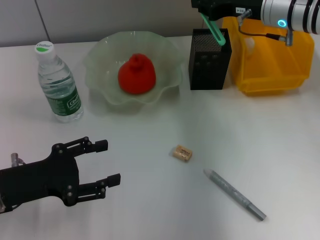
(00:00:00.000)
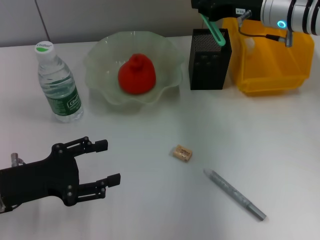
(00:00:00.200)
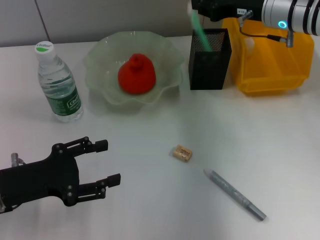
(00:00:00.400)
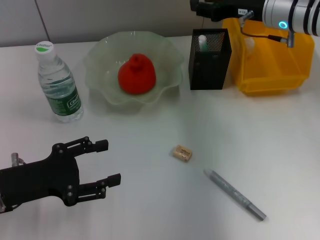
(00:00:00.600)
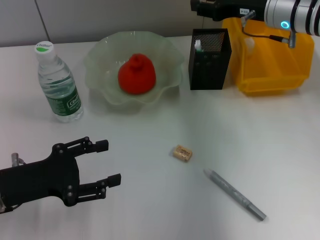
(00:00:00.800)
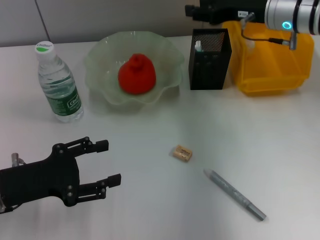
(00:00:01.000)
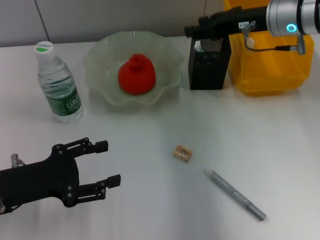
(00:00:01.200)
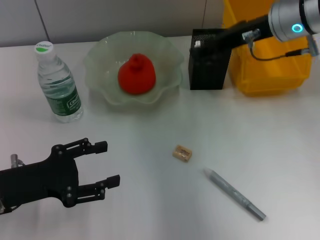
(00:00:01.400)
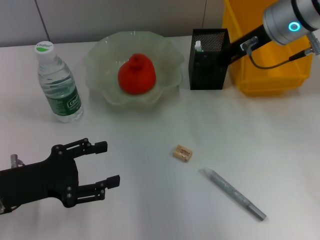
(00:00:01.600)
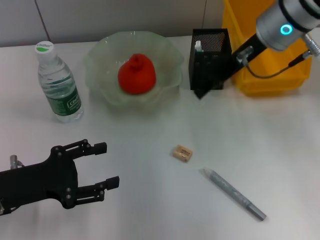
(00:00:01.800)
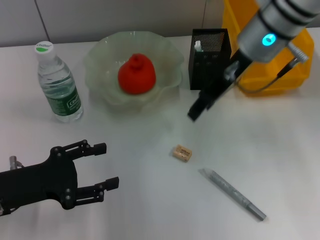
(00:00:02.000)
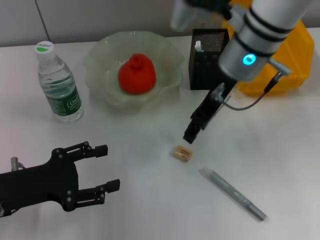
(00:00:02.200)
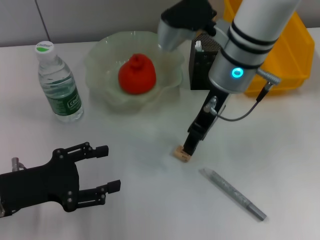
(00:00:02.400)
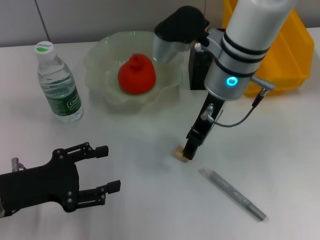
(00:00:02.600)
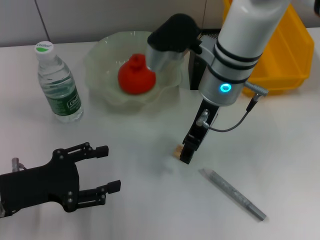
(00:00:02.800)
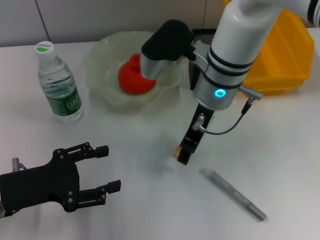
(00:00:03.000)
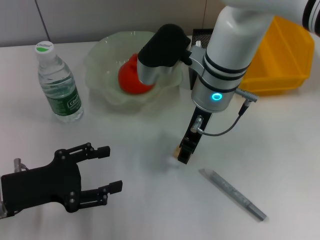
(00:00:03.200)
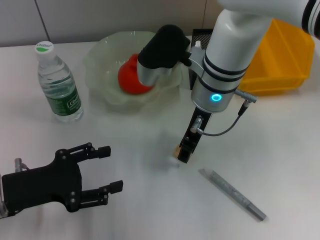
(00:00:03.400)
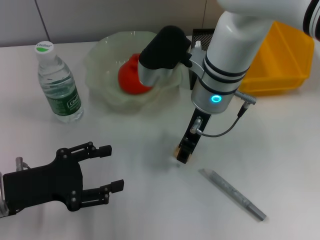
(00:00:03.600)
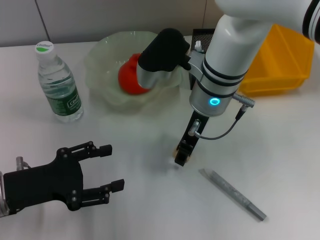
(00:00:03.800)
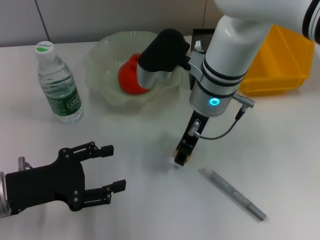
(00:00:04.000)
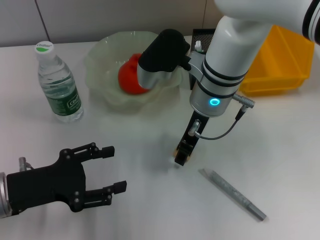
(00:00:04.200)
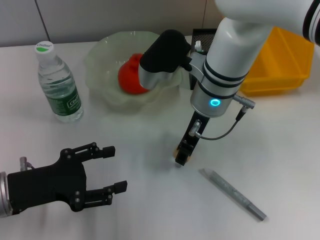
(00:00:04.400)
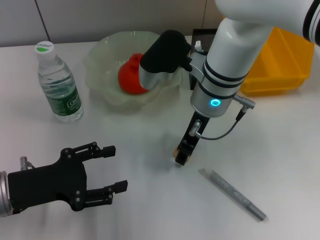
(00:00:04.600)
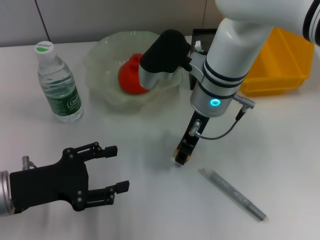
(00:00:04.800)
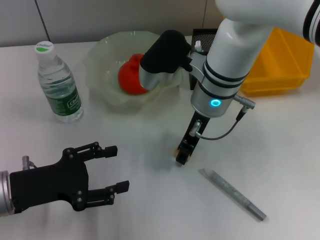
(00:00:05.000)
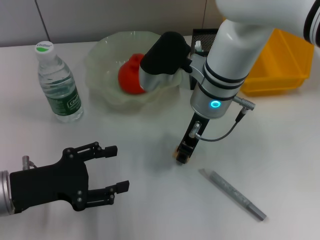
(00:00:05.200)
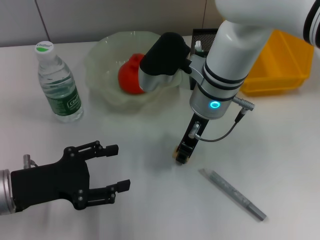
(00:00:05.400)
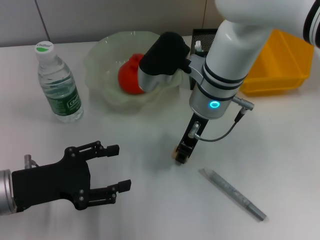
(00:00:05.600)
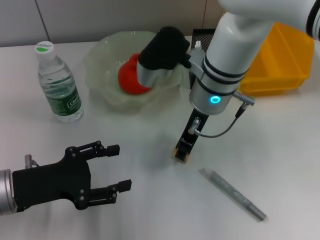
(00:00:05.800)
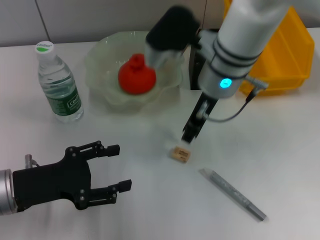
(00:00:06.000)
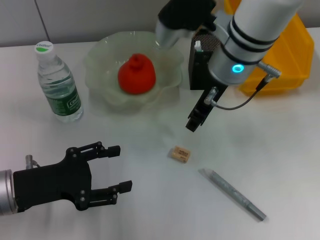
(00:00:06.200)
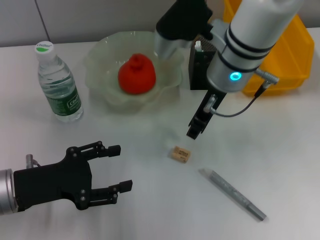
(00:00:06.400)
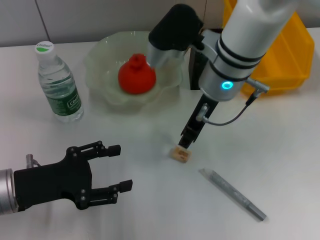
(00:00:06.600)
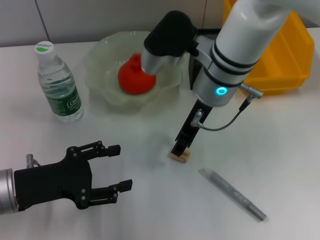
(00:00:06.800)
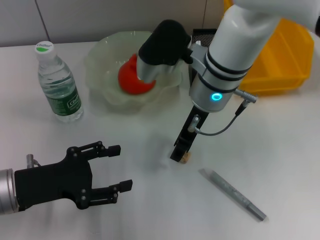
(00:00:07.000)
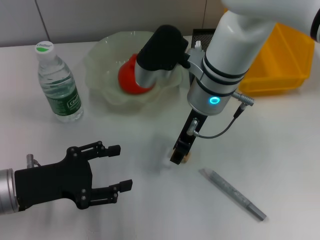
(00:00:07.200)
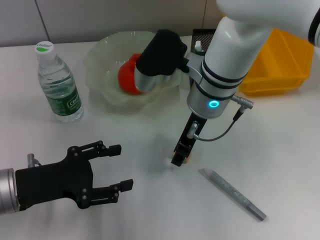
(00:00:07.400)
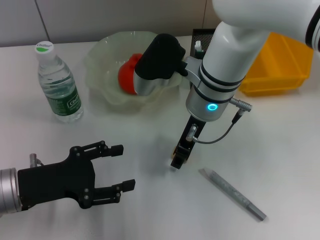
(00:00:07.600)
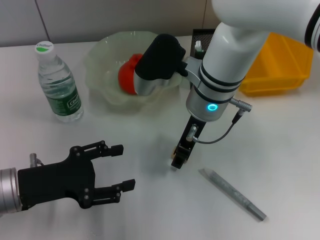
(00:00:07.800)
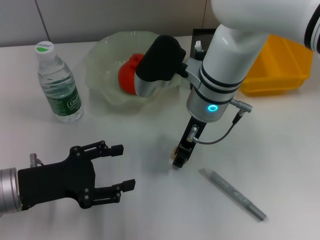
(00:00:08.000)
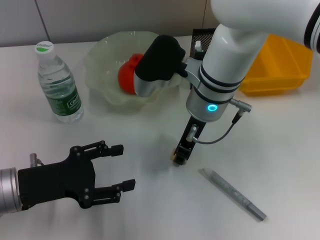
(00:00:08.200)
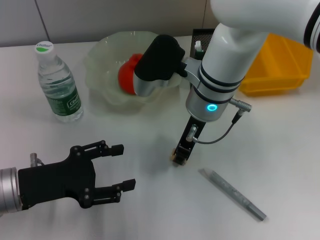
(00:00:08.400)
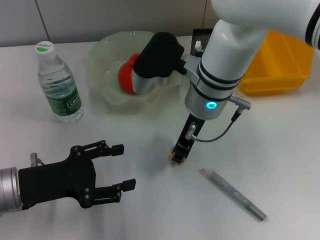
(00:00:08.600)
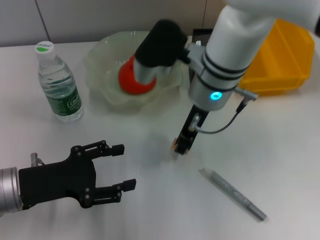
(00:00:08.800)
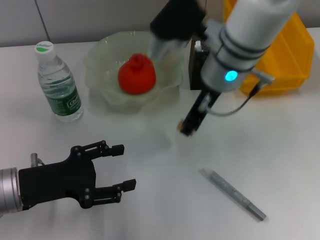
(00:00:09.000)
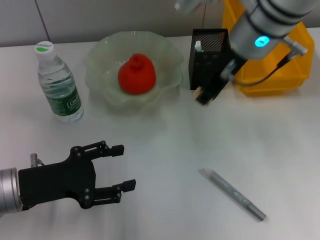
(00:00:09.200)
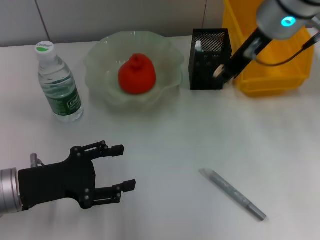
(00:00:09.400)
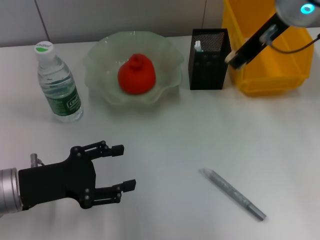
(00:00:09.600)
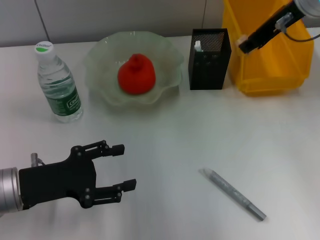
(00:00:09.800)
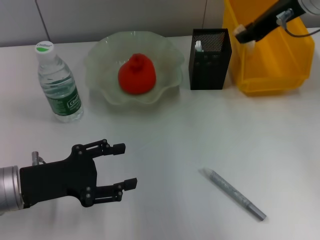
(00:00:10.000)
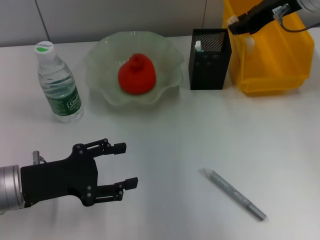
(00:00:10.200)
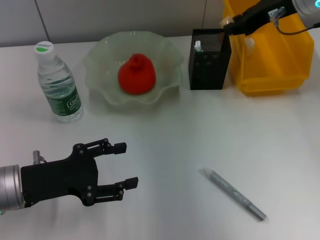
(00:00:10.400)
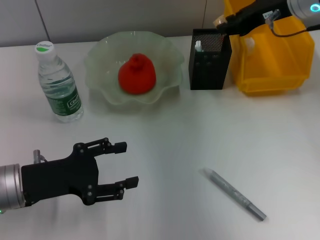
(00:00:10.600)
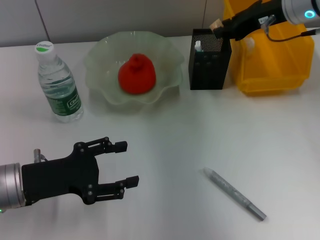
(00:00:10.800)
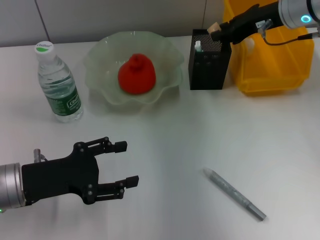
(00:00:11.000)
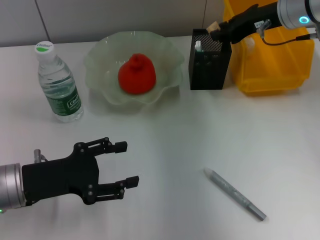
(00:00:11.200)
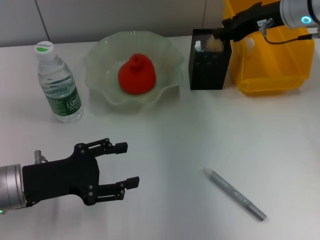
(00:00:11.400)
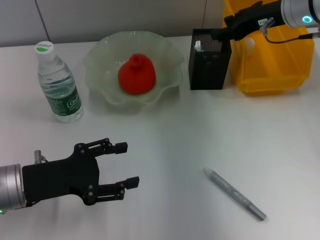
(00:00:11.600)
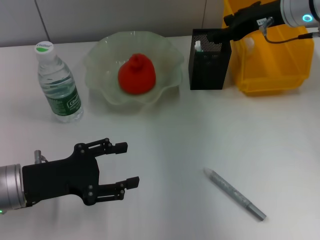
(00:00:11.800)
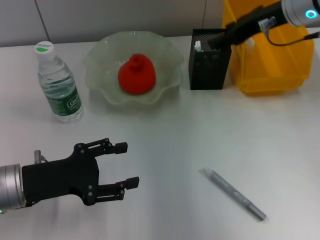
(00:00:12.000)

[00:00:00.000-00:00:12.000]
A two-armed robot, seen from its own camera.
Step, 00:00:01.200 to 00:00:08.000: Grab the eraser with the right hand.
Step, 00:00:08.400 to 00:00:11.600: Put the eraser into the pen holder with the right hand.
00:00:00.000 to 00:00:01.600: The right gripper heads upward, covering about 5 cm, and opens up.
00:00:01.600 to 00:00:03.000: The right gripper travels to the left and downward by approximately 15 cm.
00:00:03.000 to 00:00:07.600: The grippers stay close to where they were, moving slightly.
00:00:07.600 to 00:00:09.000: The right gripper heads upward, covering some 5 cm, and closes its fingers.
00:00:09.000 to 00:00:10.400: The right gripper moves to the right and forward, approximately 15 cm.
00:00:10.400 to 00:00:12.000: The right gripper opens up.

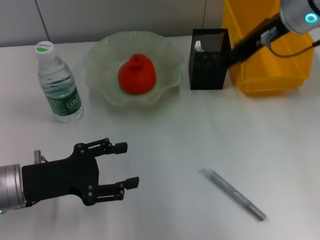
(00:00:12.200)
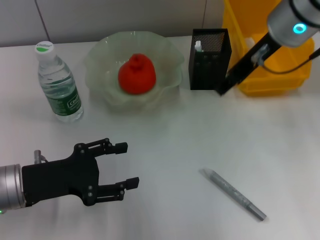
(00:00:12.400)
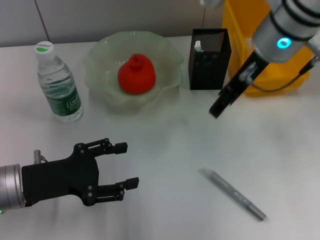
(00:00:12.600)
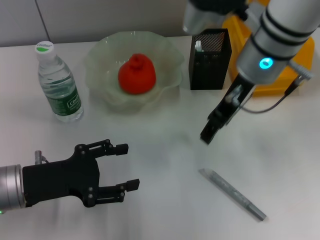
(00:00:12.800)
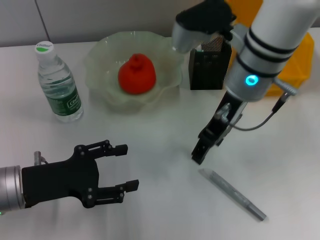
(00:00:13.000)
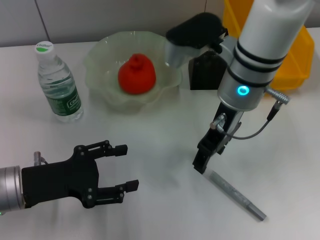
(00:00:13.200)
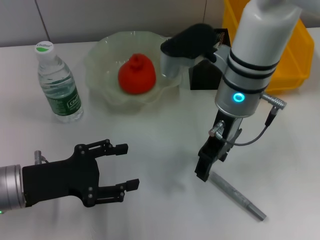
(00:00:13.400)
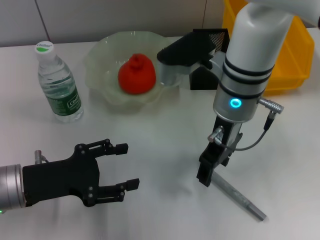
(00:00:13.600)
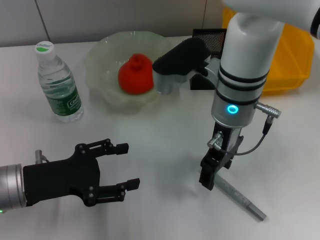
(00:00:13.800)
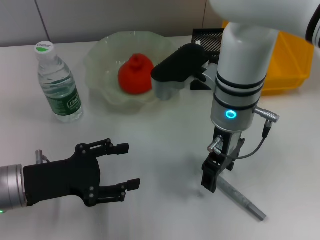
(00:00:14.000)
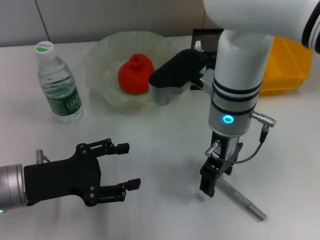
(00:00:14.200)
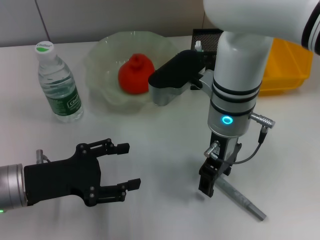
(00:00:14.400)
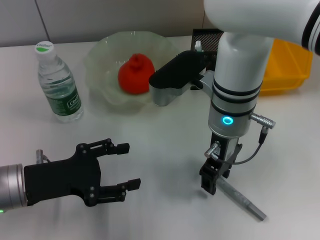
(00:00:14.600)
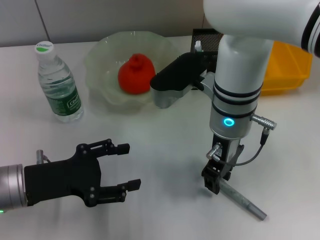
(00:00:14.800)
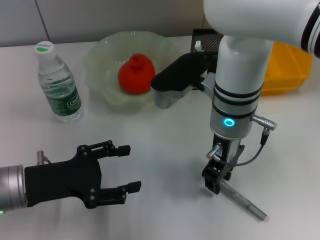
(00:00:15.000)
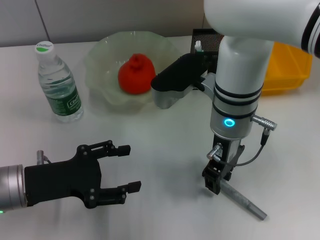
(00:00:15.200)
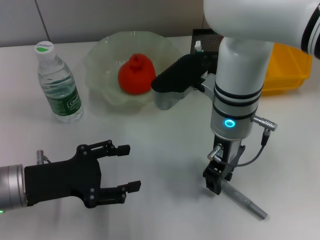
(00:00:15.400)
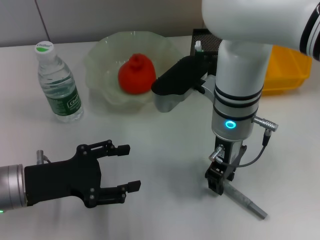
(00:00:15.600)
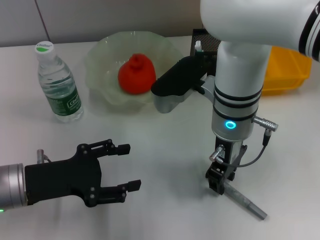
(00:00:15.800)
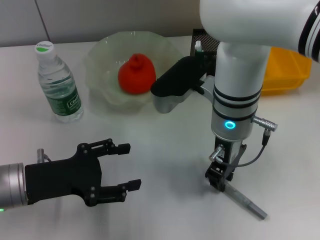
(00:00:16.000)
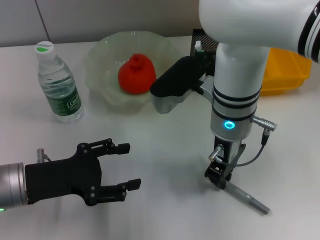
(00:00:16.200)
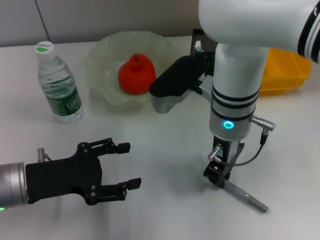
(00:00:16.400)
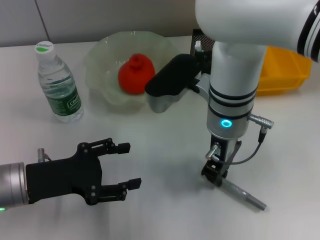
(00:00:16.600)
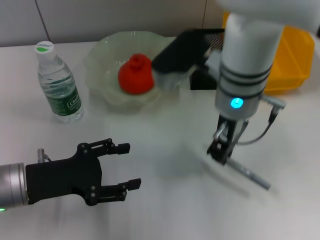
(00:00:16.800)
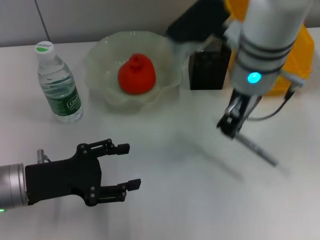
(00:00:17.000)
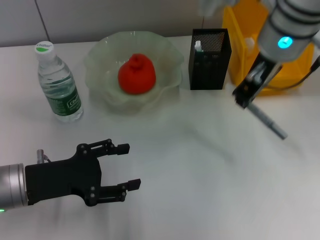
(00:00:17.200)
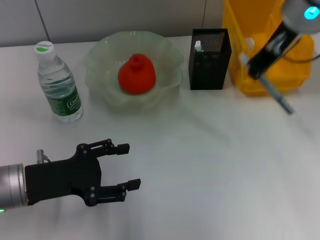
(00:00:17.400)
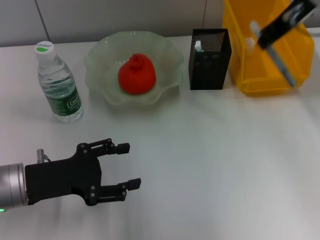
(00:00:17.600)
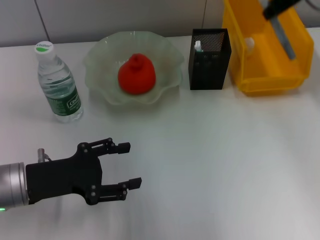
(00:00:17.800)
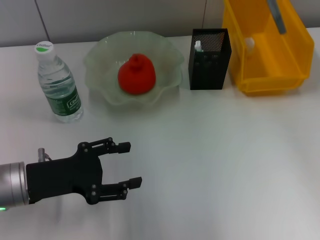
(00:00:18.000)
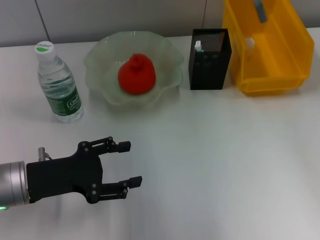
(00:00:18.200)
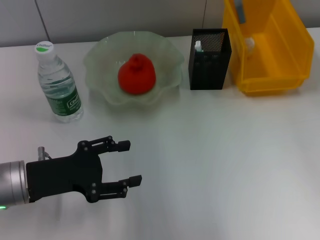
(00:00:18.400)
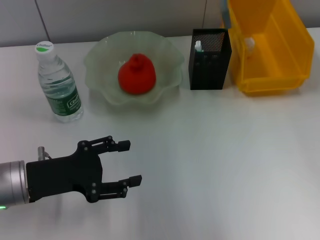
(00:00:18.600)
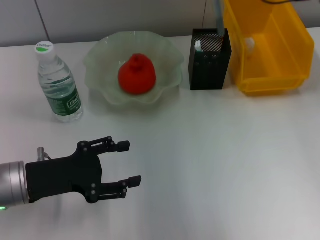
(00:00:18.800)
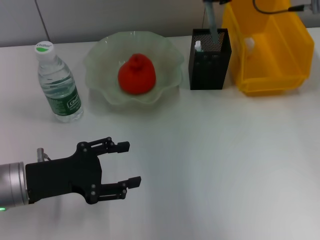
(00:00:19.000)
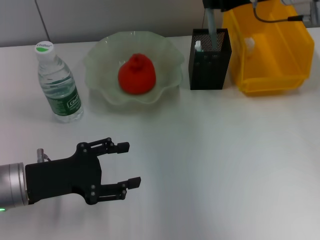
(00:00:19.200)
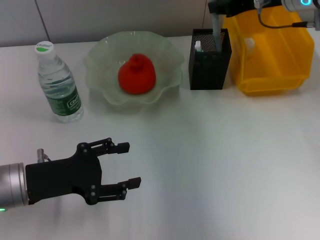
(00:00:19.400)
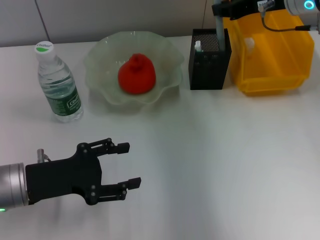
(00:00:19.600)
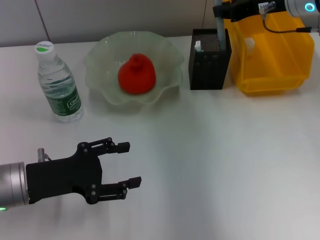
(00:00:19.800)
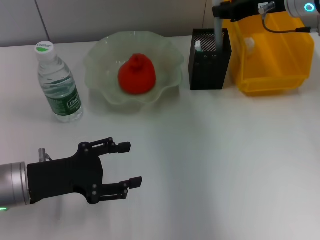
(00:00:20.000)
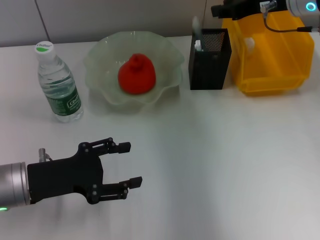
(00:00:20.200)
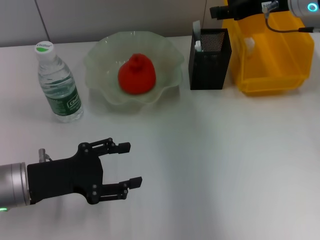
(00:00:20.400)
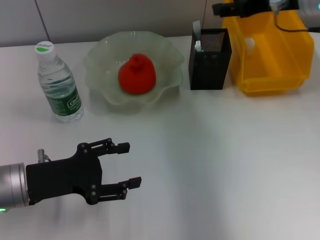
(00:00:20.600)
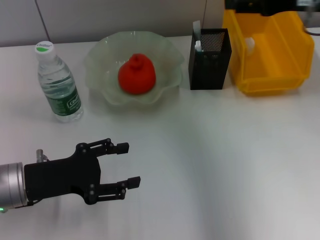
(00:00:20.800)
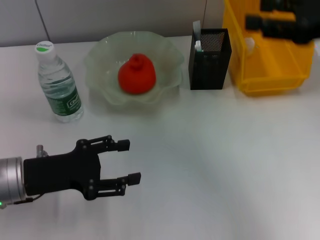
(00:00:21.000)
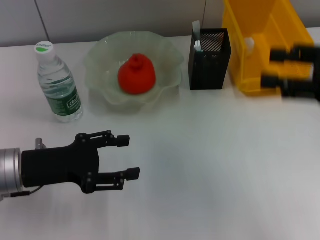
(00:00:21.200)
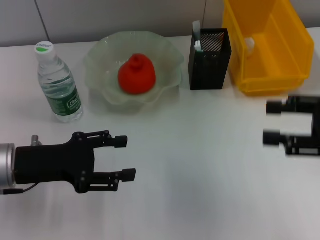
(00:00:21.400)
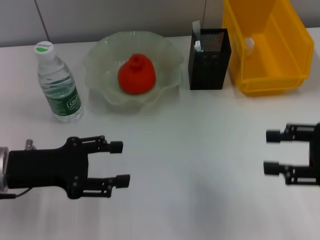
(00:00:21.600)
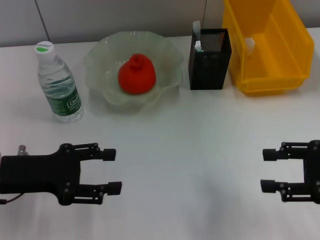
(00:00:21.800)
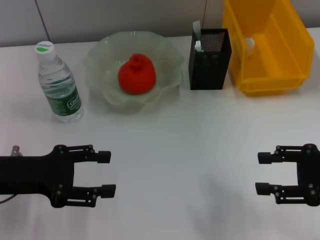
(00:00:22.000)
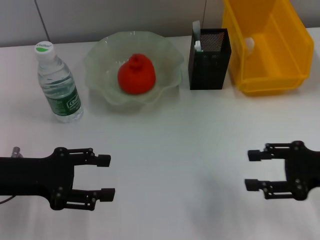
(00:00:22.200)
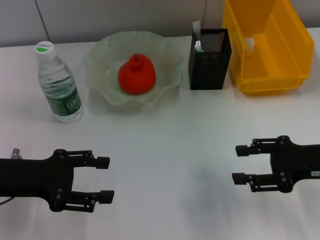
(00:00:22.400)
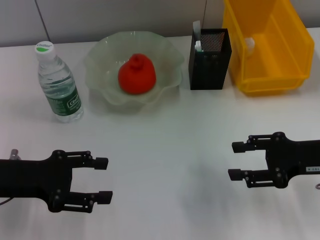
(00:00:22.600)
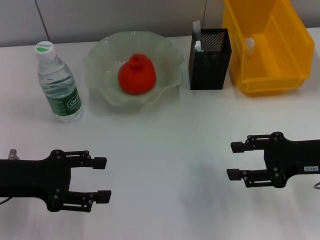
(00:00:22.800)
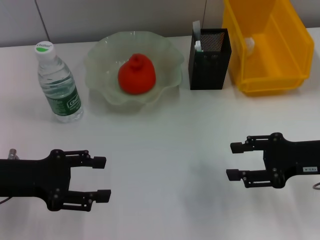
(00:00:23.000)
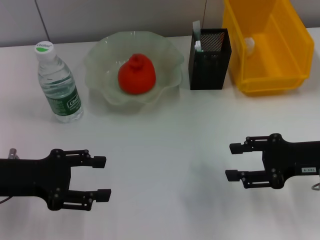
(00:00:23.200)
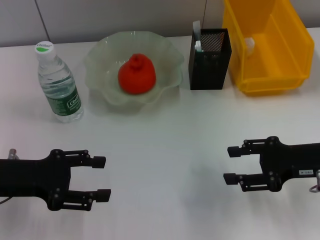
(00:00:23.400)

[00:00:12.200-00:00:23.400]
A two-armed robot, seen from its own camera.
Step, 00:00:12.200 to 00:00:16.000: Grab the gray glue with the right hand.
Step, 00:00:16.200 to 00:00:20.400: Place the gray glue into the pen holder with the right hand.
00:00:12.200 to 00:00:13.800: The right gripper is displaced to the left and downward by roughly 15 cm.
00:00:13.800 to 00:00:15.400: The right gripper closes its fingers.
00:00:15.400 to 00:00:17.000: The right gripper travels upward by roughly 5 cm, and closes up.
00:00:17.000 to 00:00:18.600: The right gripper is displaced to the right, forward and upward by approximately 15 cm.
00:00:18.600 to 00:00:20.200: The right gripper moves downward, roughly 5 cm.
00:00:20.200 to 00:00:21.800: The right gripper goes approximately 20 cm backward, and opens up.
00:00:21.800 to 00:00:23.400: The right gripper shifts by about 5 cm.
